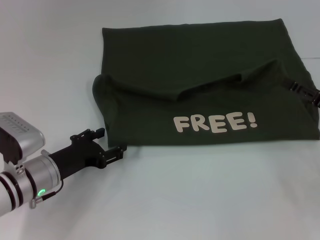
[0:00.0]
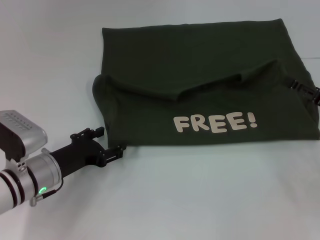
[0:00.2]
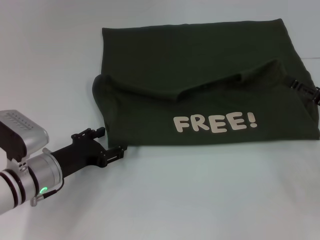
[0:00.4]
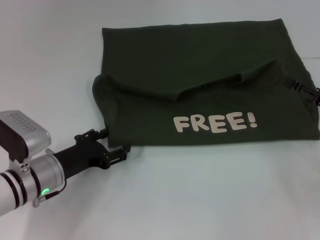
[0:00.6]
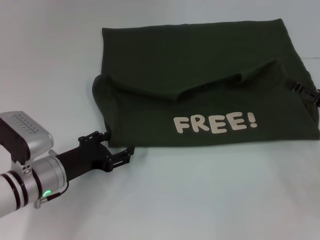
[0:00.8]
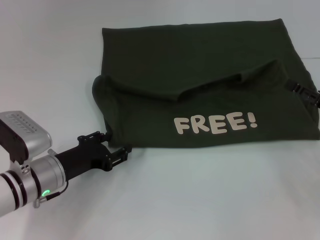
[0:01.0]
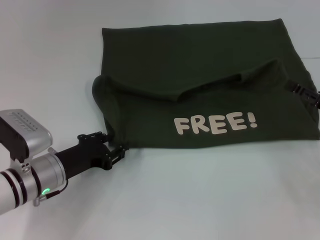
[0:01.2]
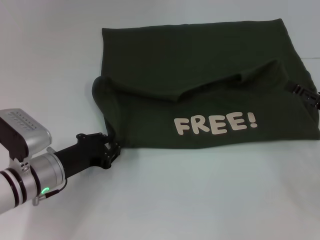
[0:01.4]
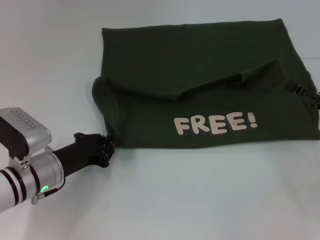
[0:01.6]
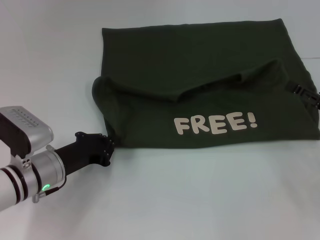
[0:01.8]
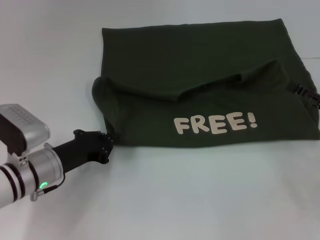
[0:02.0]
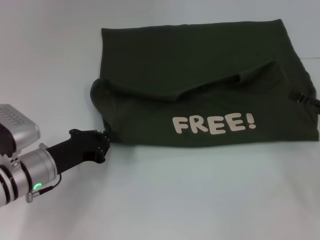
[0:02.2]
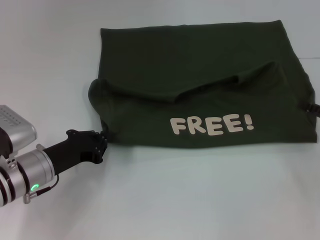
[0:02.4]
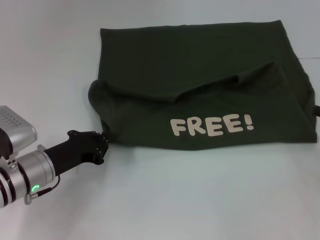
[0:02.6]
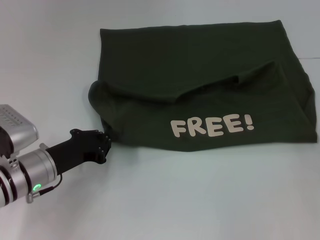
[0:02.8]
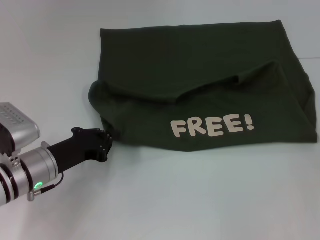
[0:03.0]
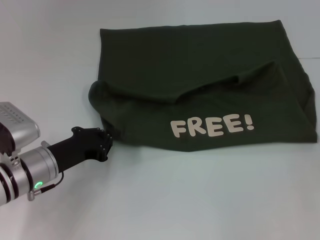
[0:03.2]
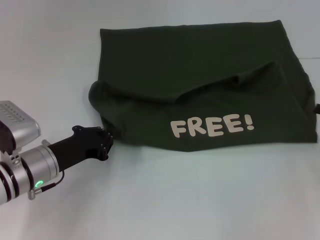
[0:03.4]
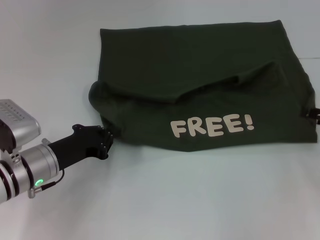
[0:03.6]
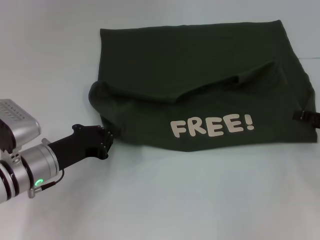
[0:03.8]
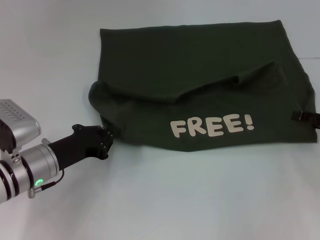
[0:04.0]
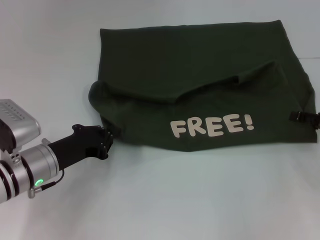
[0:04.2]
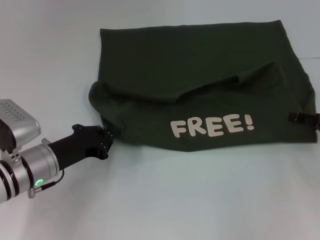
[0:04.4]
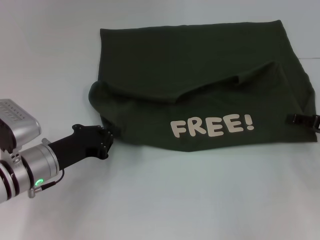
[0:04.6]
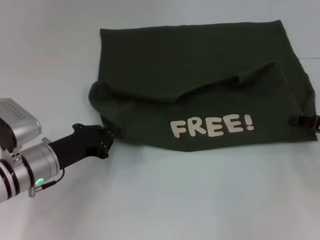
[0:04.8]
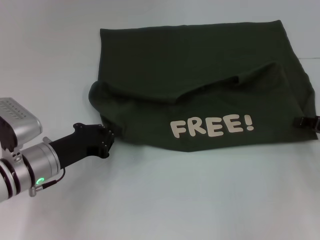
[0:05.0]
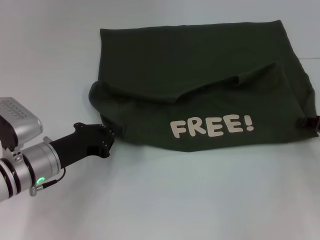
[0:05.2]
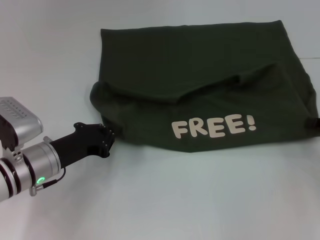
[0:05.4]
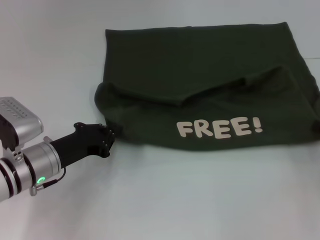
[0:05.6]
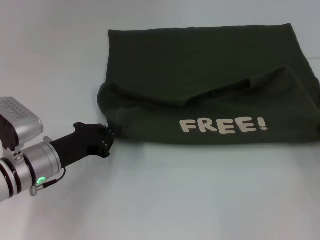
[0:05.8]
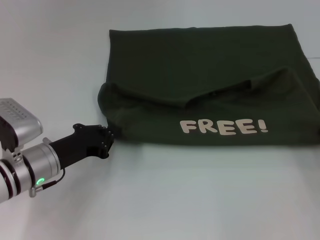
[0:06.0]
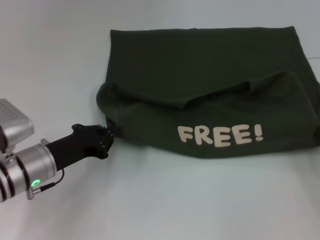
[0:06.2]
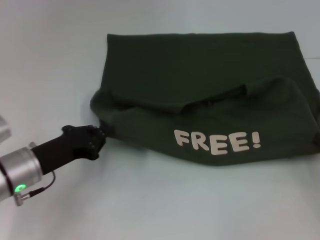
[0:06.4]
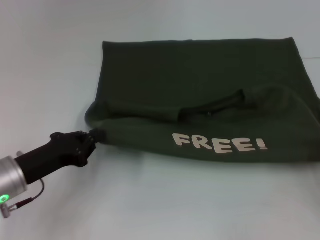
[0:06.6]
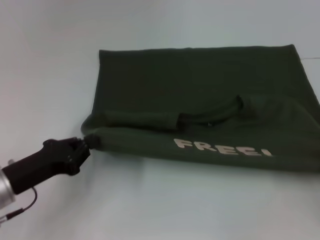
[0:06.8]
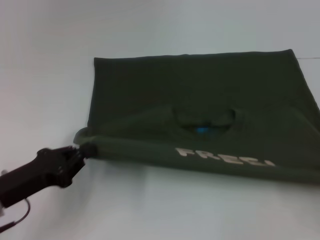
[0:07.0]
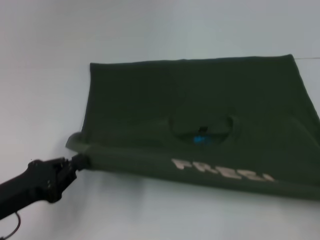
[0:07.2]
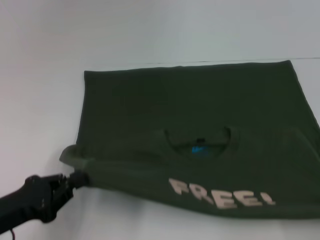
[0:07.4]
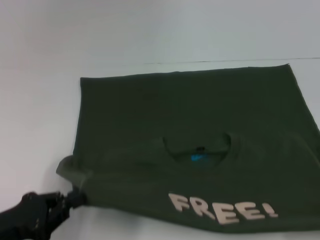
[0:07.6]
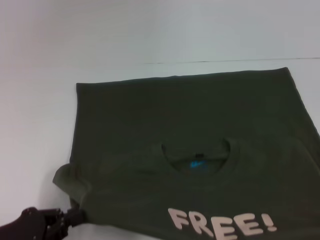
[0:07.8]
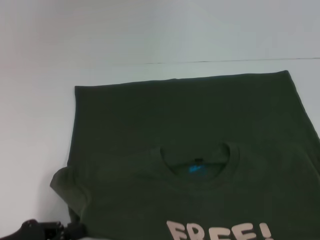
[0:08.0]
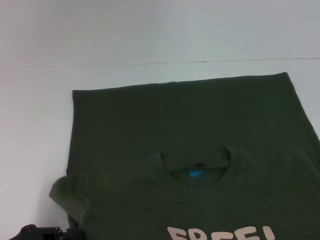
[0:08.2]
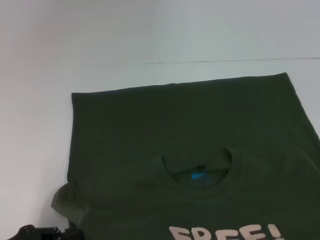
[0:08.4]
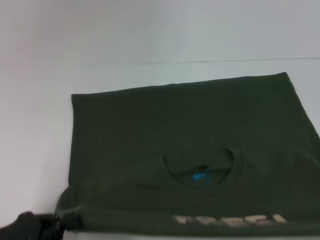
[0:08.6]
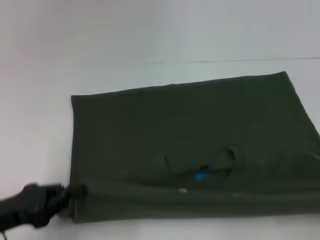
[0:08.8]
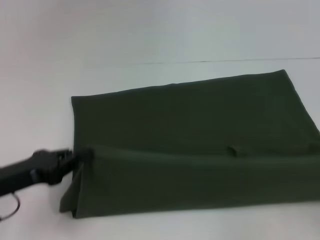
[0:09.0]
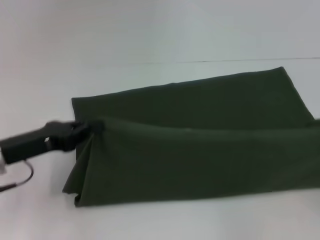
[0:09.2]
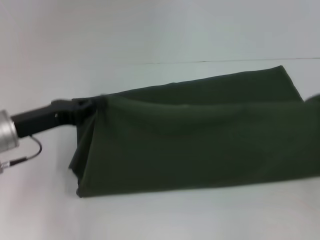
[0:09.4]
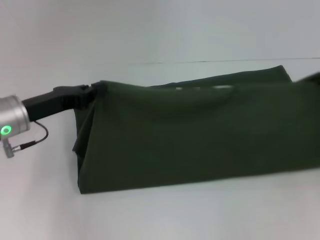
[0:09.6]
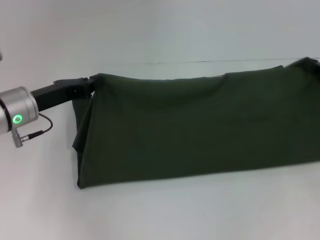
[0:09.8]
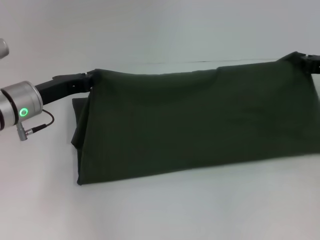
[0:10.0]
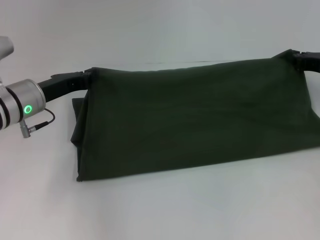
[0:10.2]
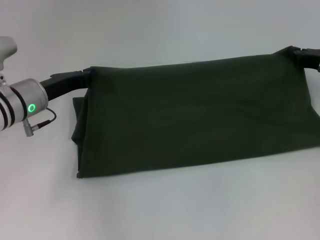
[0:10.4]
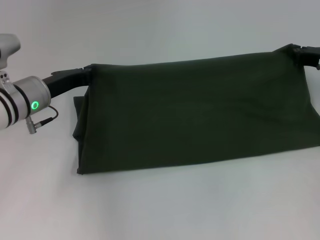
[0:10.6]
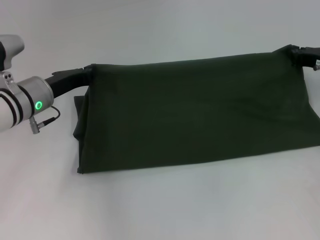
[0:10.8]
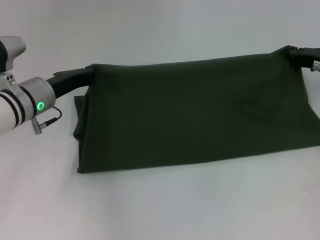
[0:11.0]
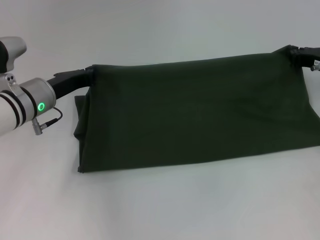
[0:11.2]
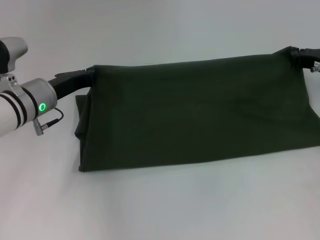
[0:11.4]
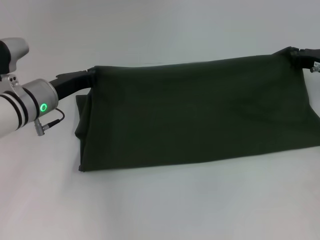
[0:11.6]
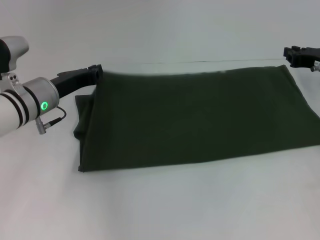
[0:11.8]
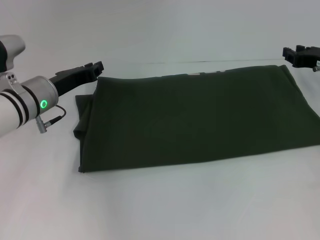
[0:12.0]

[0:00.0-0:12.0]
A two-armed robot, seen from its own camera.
Step, 0:00.0 to 0:08.0: Pull the clothes with your left hand.
Step, 0:00.0 to 0:08.0: Pull the clothes with your right hand.
Step, 0:08.2 to 0:12.0: Fold the clothes with your right hand.
0:00.0 to 0:01.6: The left gripper closes its fingers.
0:01.6 to 0:03.0: The right gripper shifts approximately 10 cm to the right.
0:04.4 to 0:06.0: The right gripper heads backward, covering approximately 5 cm, and closes up.
0:06.0 to 0:07.6: The right gripper shifts roughly 15 cm backward. Meanwhile the left gripper moves backward and to the left, roughly 15 cm.
0:07.6 to 0:09.0: The grippers both shift forward by about 5 cm.
0:09.0 to 0:10.4: The left gripper travels forward by about 15 cm, while the right gripper moves forward and to the left, roughly 25 cm.
0:10.4 to 0:12.0: The grippers move only a little.

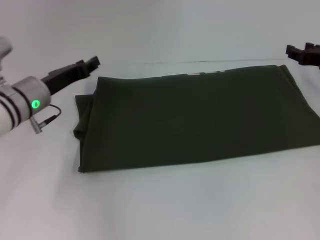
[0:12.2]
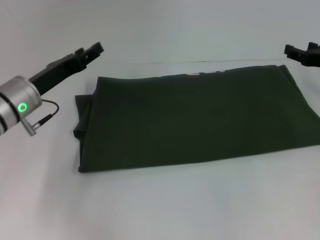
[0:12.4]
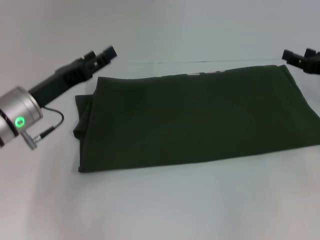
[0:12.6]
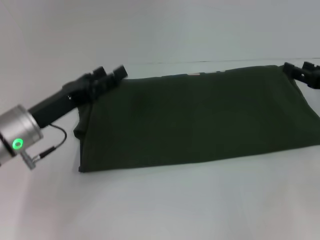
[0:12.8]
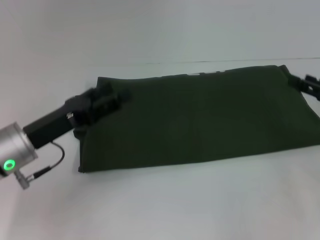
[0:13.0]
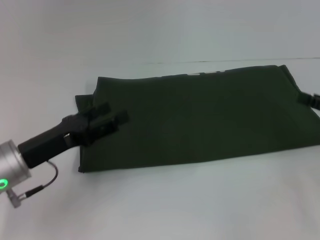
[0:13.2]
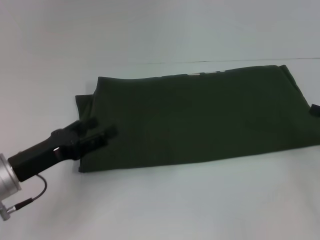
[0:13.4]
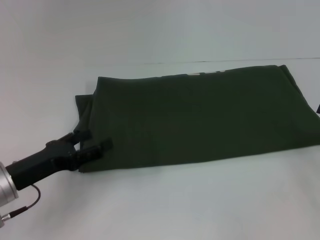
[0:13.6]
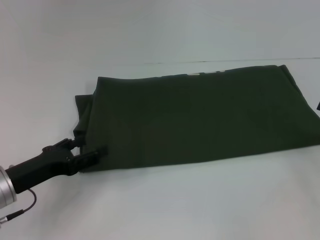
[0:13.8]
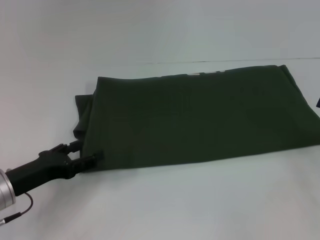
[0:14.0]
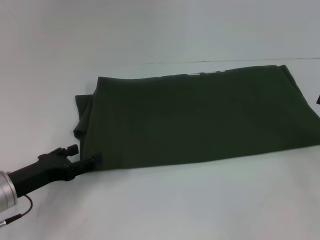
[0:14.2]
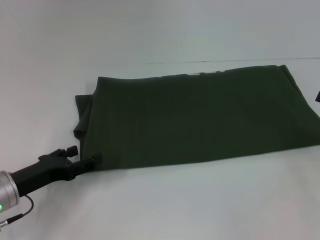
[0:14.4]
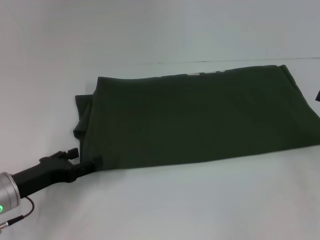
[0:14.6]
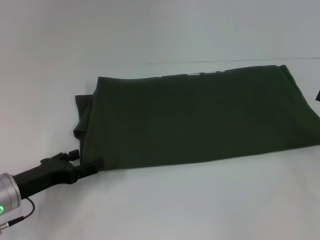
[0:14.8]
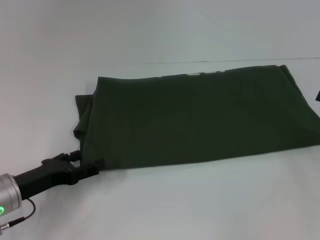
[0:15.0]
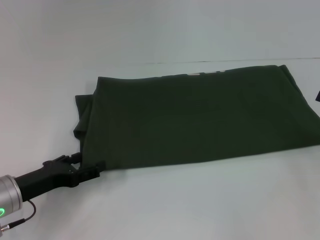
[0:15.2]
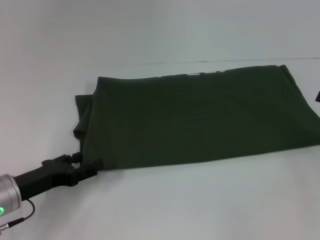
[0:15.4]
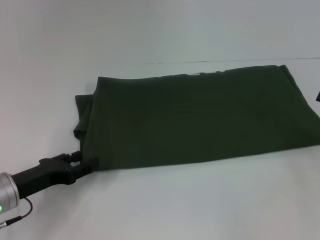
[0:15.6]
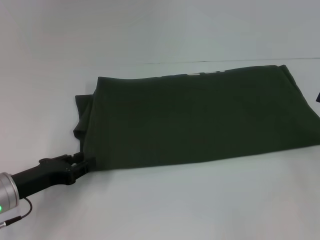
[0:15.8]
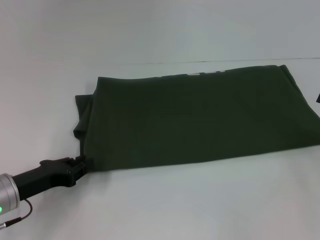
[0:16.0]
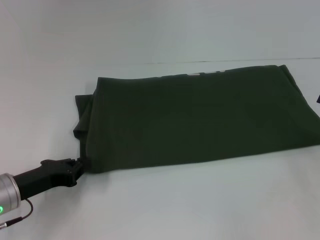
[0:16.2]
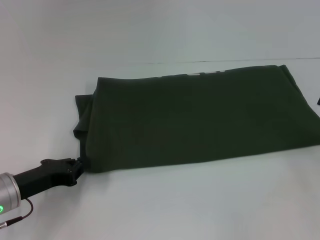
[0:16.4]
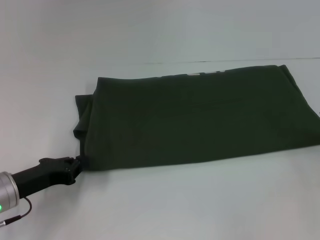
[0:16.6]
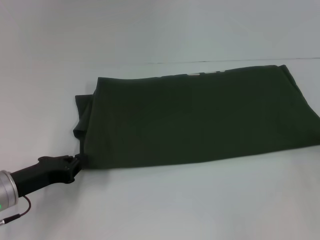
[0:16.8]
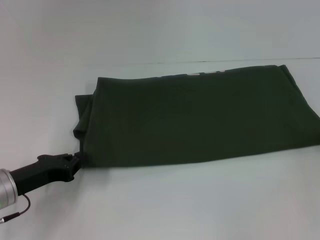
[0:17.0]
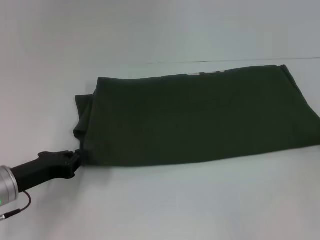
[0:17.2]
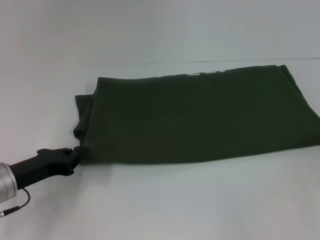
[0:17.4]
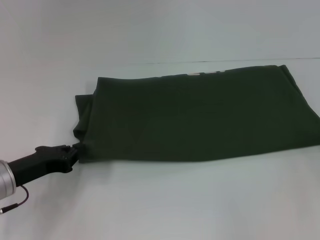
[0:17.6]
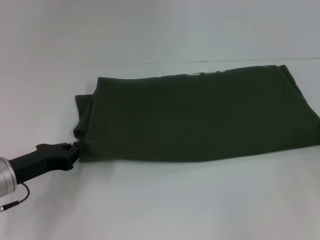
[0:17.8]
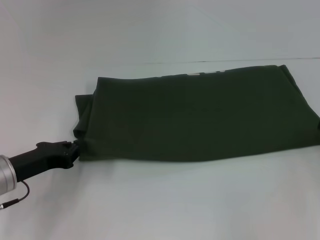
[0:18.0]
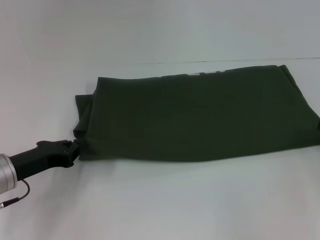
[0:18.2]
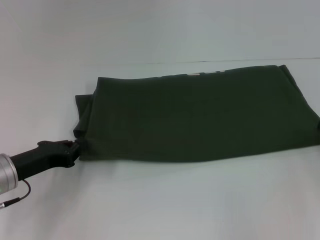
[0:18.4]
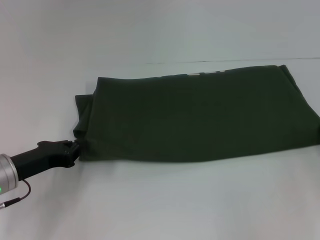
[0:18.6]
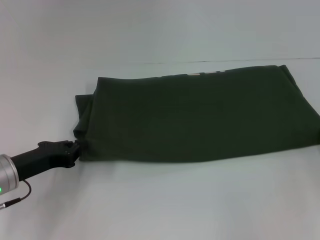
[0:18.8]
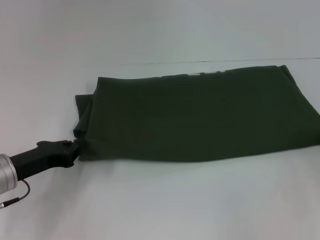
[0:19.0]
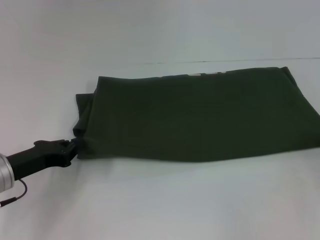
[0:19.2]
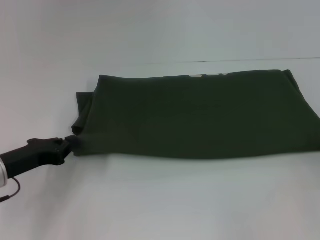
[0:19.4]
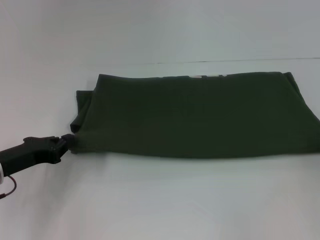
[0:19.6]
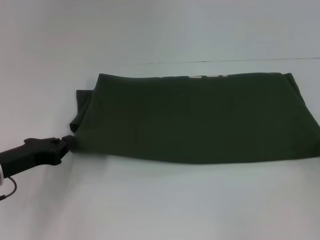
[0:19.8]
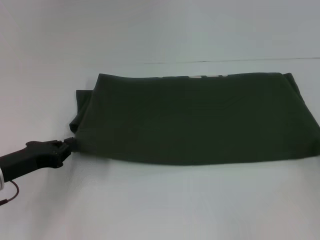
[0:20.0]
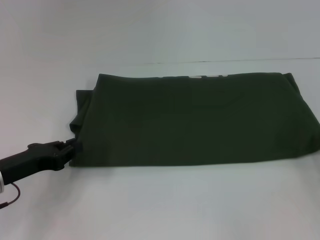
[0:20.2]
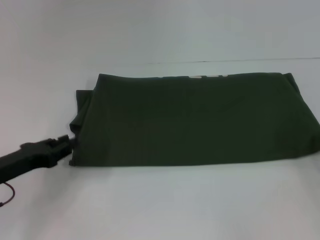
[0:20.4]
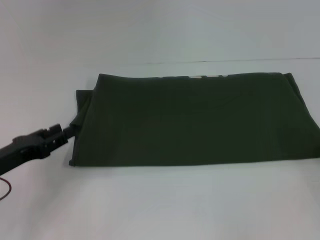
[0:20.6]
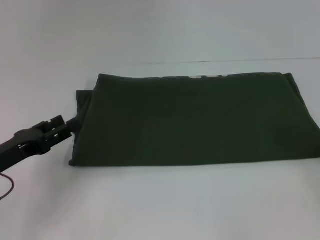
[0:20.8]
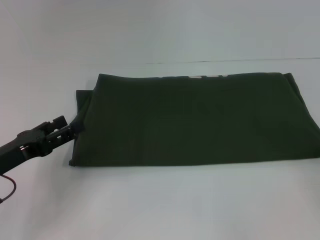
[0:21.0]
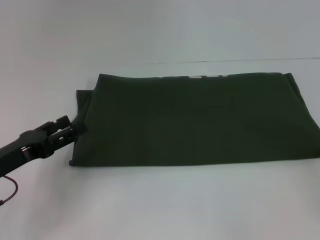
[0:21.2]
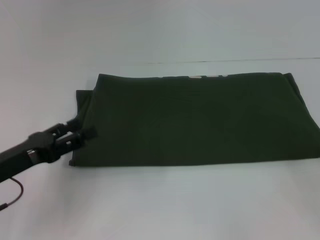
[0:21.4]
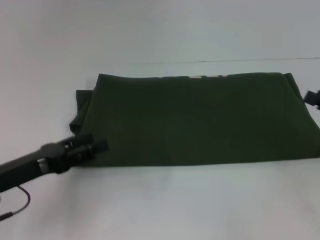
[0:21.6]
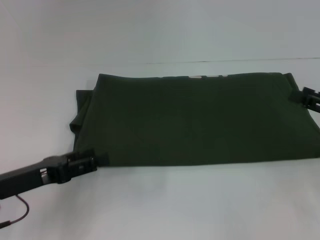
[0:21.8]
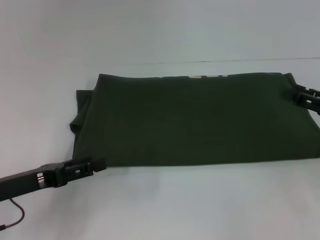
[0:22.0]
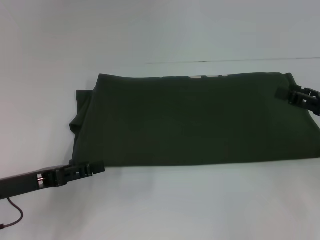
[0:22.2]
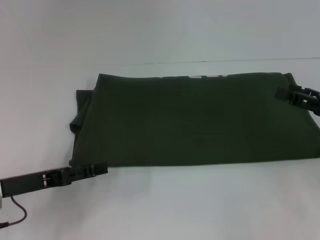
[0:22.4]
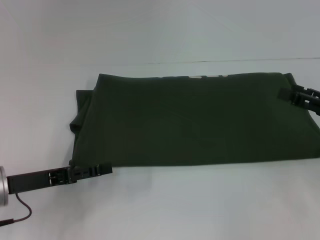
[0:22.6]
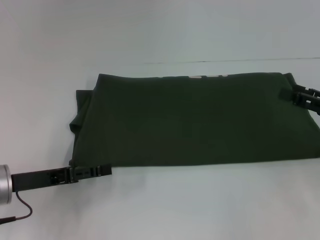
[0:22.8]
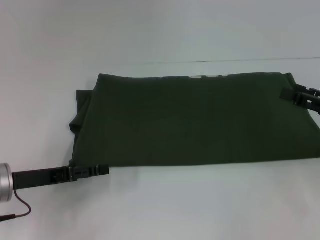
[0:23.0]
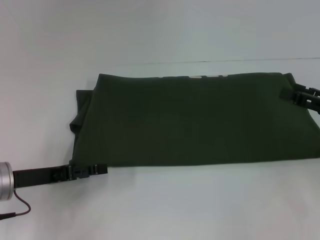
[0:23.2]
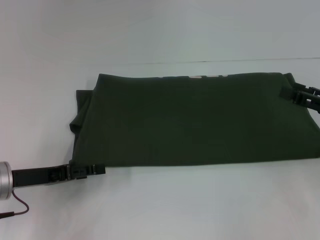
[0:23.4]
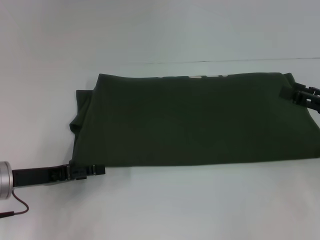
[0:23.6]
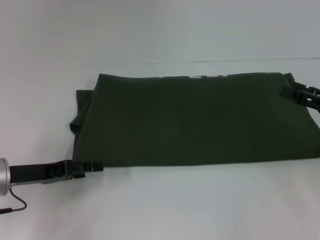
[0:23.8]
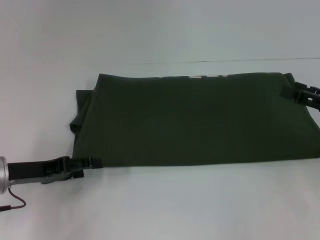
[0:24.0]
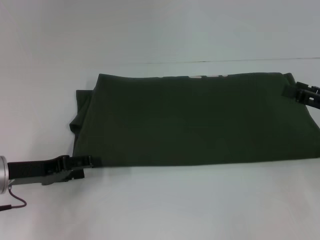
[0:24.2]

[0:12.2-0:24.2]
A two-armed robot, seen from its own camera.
0:12.2 to 0:13.8: The left gripper is displaced backward by roughly 15 cm, and opens, while the right gripper heads backward and to the right, covering some 15 cm, and opens.
0:13.8 to 0:15.2: The grippers make only small movements.
0:15.2 to 0:16.6: The left gripper closes its fingers.
0:16.6 to 0:18.2: The grippers move only a little.
0:18.2 to 0:19.8: The right gripper closes its fingers.
0:19.8 to 0:21.2: The left gripper opens up. Meanwhile the right gripper shifts by about 5 cm, and opens its fingers.
0:21.2 to 0:22.6: The right gripper heads to the left and forward, covering about 10 cm.
0:22.6 to 0:24.2: The grippers move only a little.
